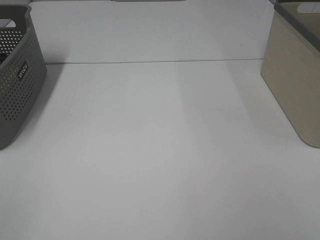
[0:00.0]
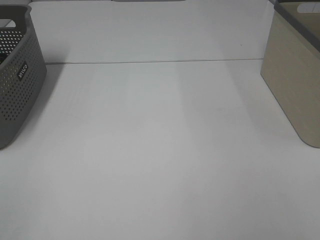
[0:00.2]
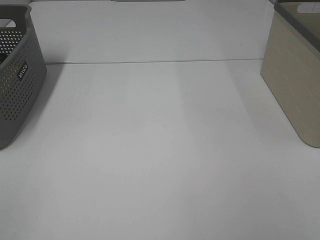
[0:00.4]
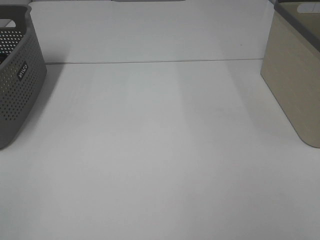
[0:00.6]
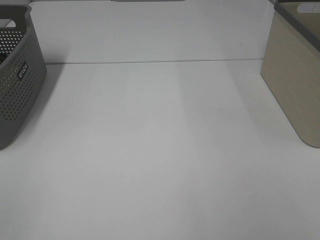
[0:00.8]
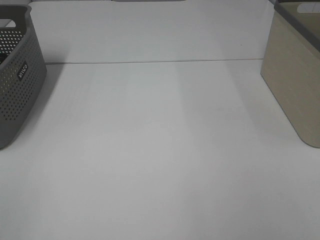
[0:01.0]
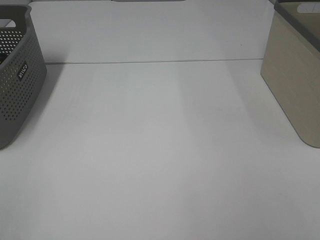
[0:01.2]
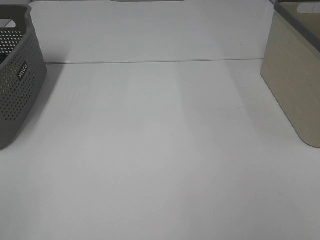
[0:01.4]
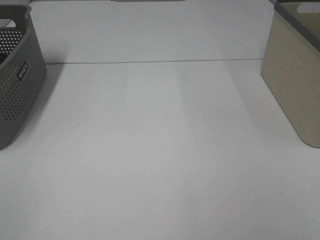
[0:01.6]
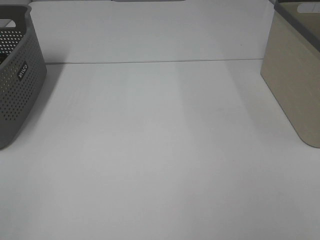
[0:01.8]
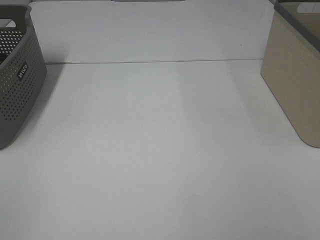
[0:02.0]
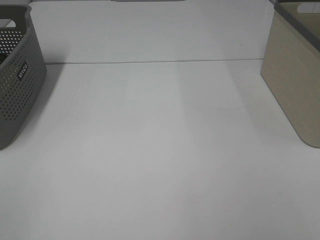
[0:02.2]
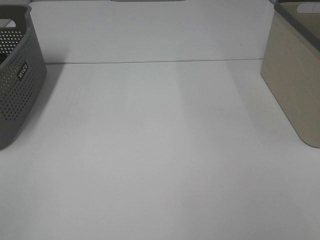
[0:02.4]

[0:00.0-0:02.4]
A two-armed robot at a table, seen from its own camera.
0:01.2 to 0:02.4: Both grippers stay about where they are.

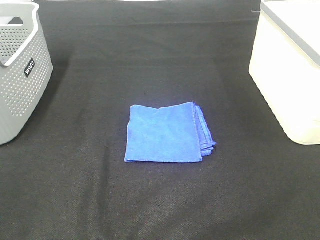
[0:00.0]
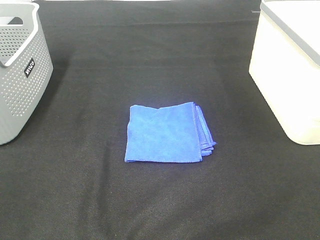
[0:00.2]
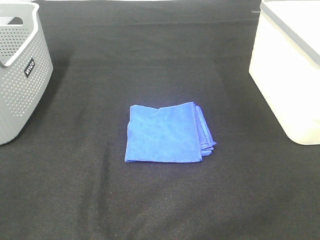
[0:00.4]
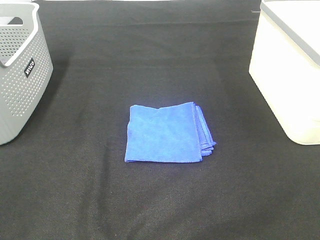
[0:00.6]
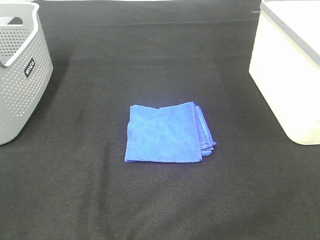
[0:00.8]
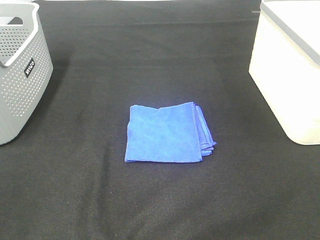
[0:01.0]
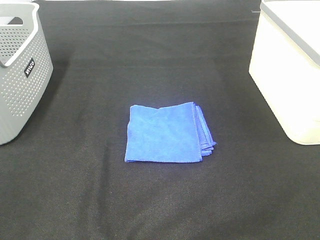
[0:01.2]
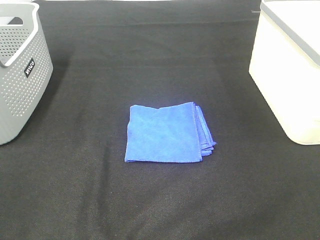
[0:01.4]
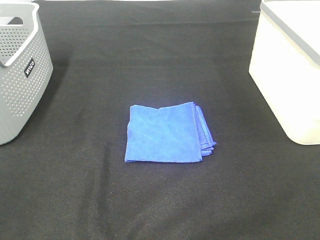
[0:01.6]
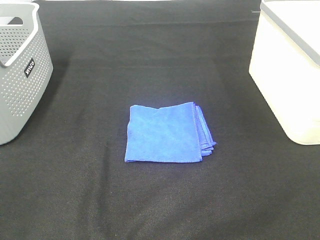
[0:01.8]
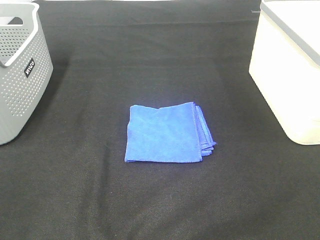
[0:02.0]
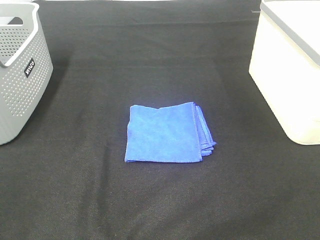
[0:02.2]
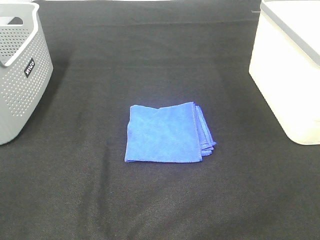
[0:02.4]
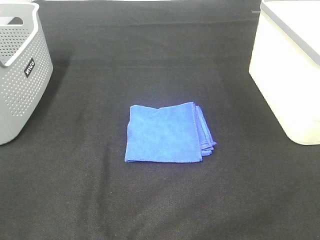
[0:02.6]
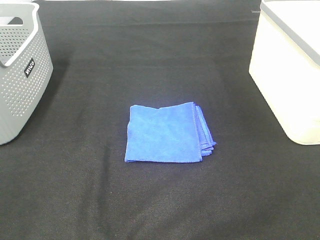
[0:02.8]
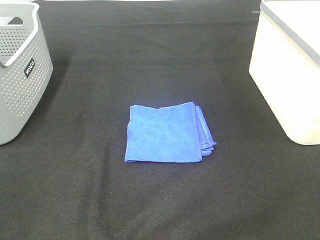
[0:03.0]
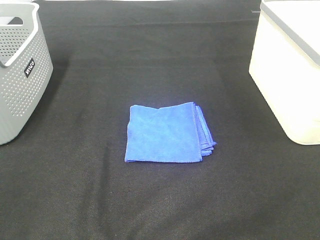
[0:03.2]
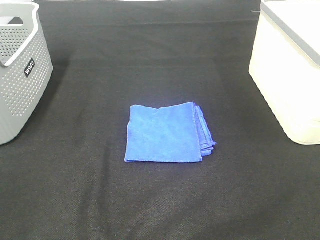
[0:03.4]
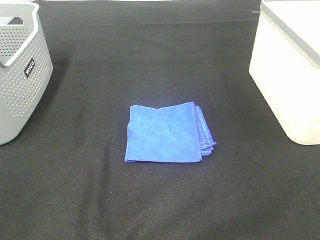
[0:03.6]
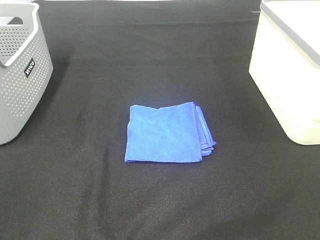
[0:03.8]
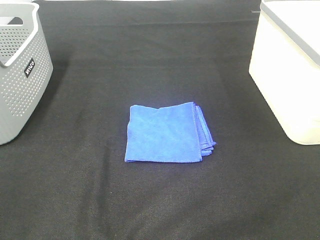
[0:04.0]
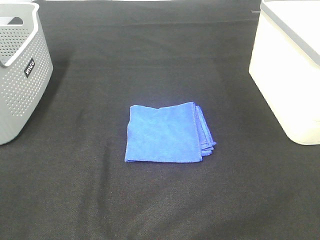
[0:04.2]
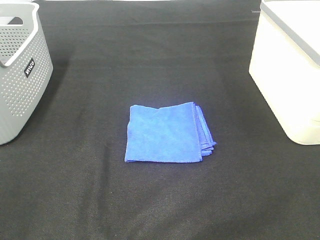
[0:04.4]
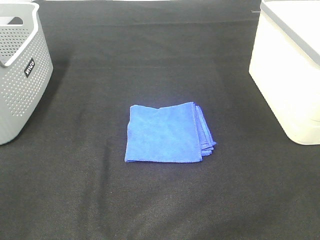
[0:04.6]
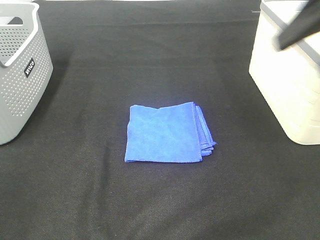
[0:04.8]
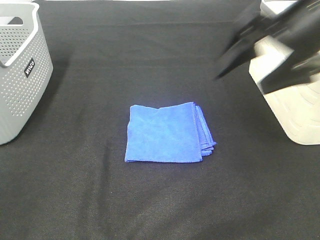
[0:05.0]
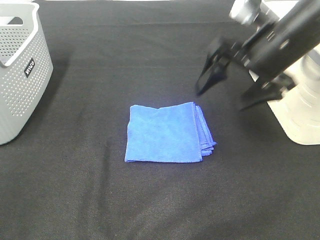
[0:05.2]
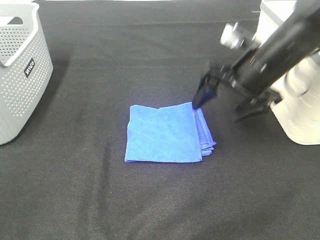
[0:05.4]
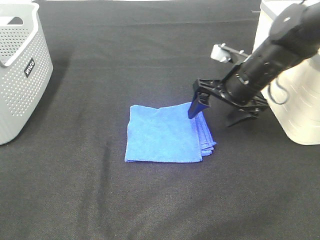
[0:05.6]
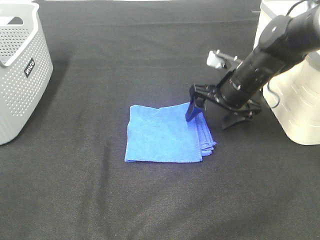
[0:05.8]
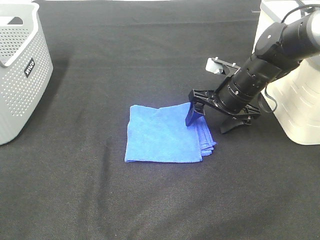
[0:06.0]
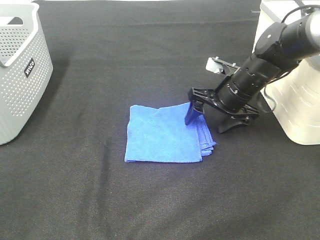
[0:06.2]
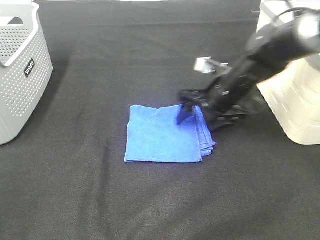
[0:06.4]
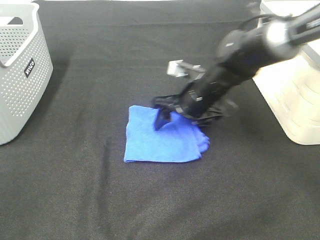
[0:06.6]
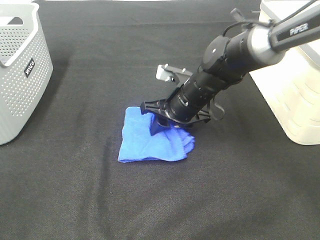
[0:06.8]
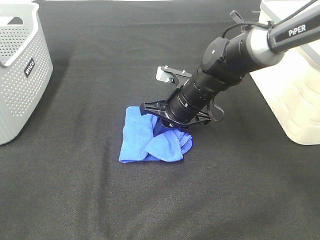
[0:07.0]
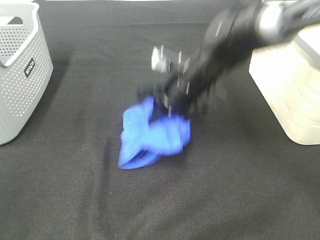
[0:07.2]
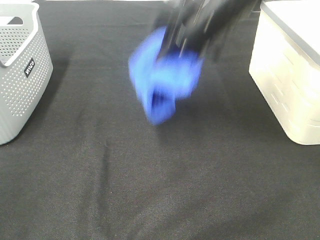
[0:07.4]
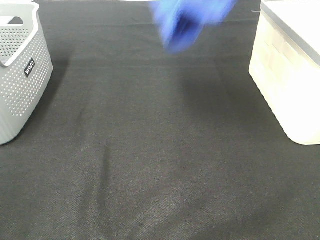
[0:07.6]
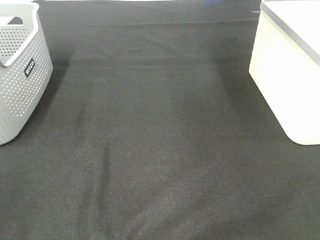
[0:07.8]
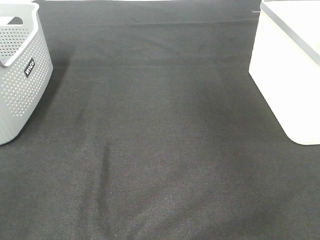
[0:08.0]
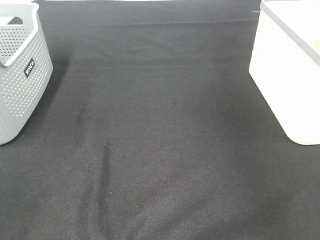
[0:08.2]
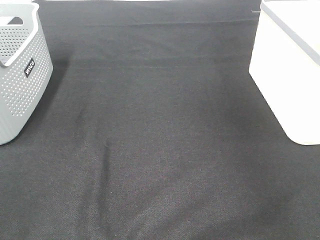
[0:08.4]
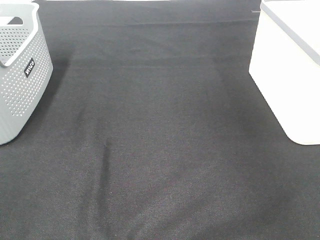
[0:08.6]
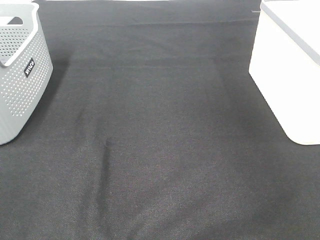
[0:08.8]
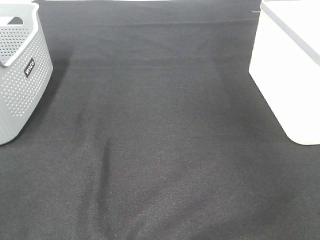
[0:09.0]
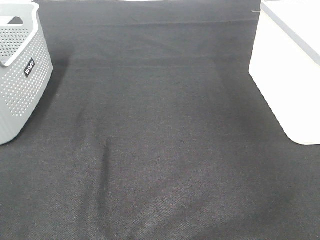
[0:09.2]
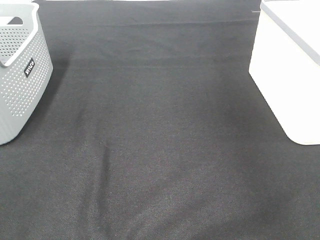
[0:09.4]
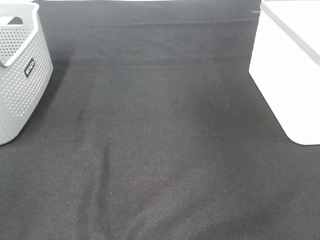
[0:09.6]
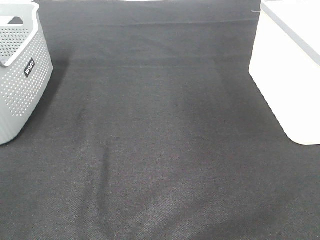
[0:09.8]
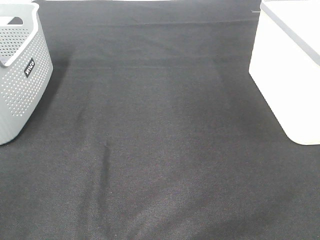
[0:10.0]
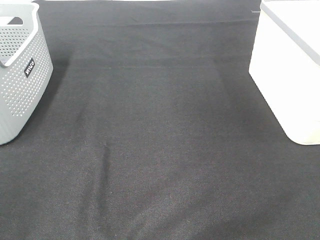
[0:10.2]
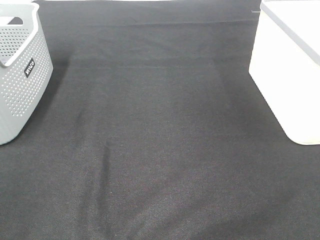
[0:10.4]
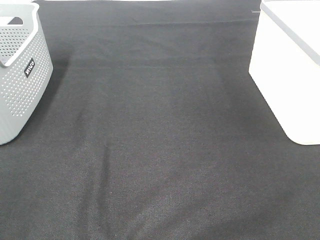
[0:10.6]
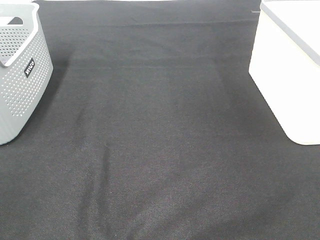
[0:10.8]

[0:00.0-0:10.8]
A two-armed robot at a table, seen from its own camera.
Step, 0:00.0 to 0:06.8: Right hand: grab the folded blue towel.
Step, 0:07.0 to 0:08.8: Right hand: place the blue towel in right basket.
0:00.0 to 0:03.0: Both grippers stay about where they are.
0:04.6 to 0:06.2: The right gripper moves downward, forward and to the left, roughly 35 cm.
0:06.2 to 0:07.8: The right gripper is displaced upward by some 35 cm, and closes.
0:07.8 to 0:09.2: The right gripper goes approximately 20 cm to the right and downward, and opens up.

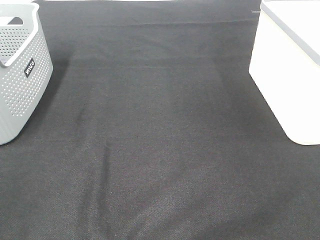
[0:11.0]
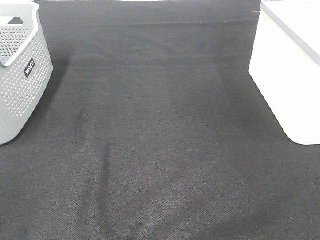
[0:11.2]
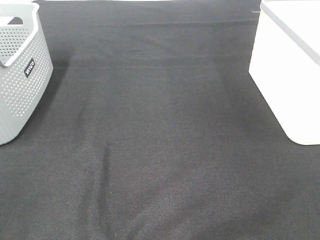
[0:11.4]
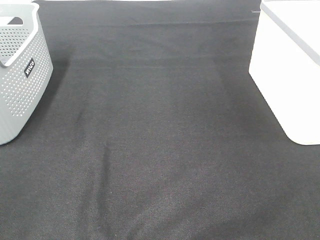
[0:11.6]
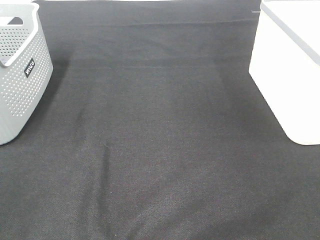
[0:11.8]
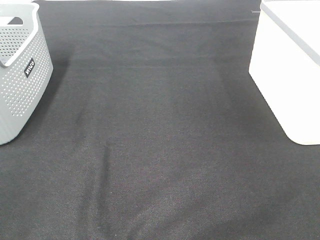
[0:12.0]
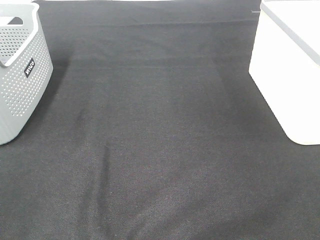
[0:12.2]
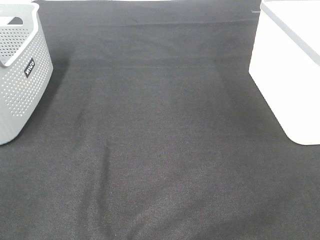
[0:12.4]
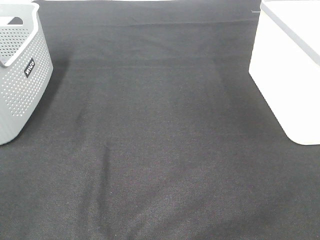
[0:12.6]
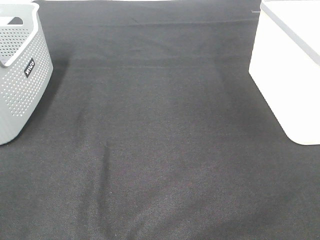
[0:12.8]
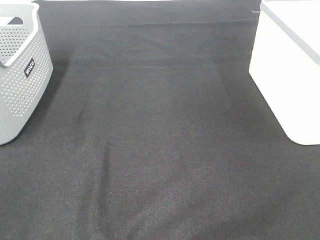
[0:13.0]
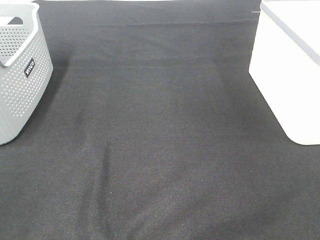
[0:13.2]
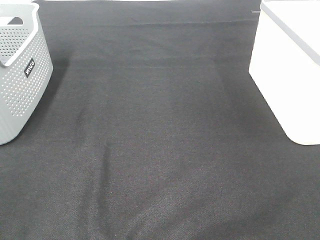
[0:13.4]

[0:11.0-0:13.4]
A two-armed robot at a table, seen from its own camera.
0:11.0 to 0:13.4: Neither gripper changes place.

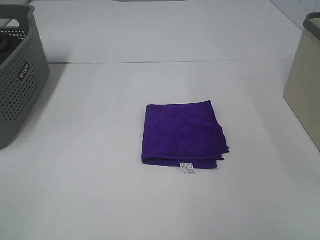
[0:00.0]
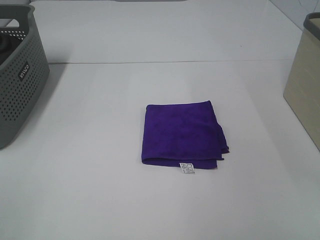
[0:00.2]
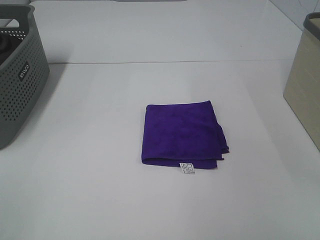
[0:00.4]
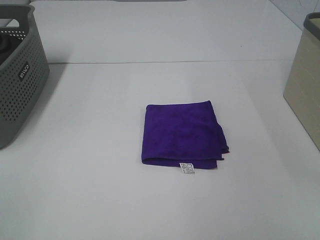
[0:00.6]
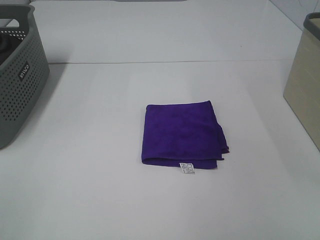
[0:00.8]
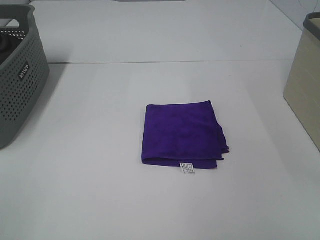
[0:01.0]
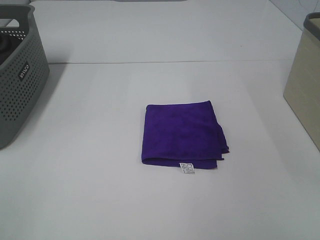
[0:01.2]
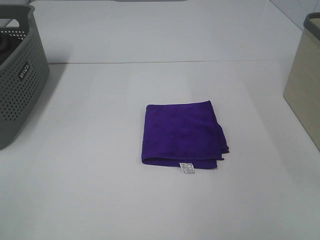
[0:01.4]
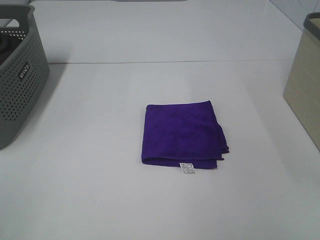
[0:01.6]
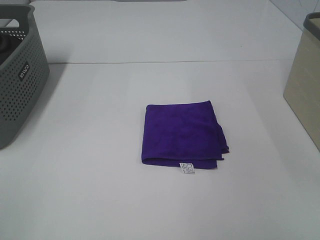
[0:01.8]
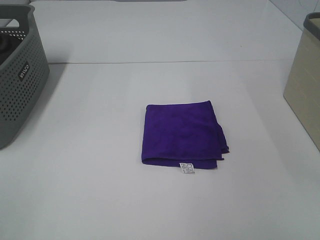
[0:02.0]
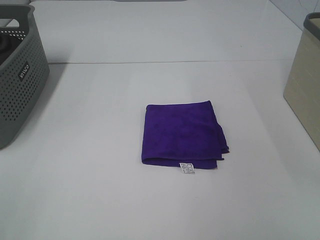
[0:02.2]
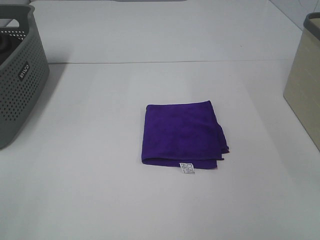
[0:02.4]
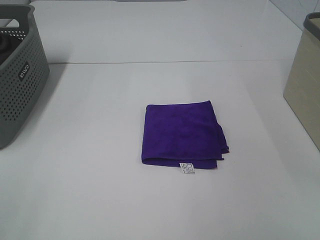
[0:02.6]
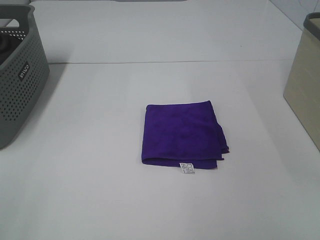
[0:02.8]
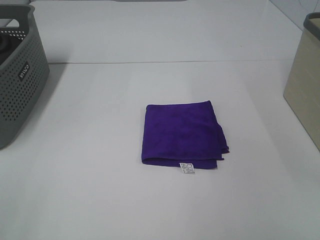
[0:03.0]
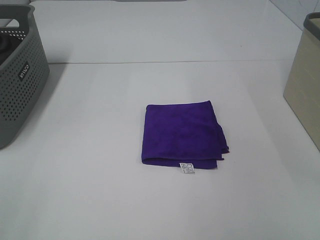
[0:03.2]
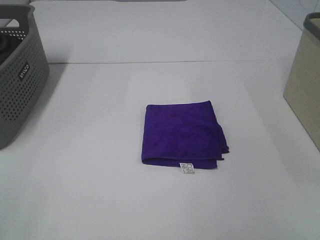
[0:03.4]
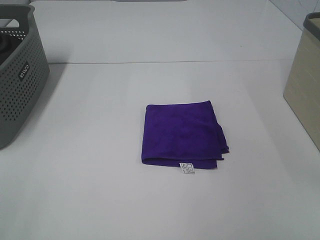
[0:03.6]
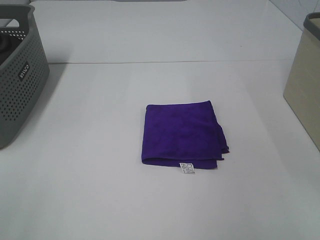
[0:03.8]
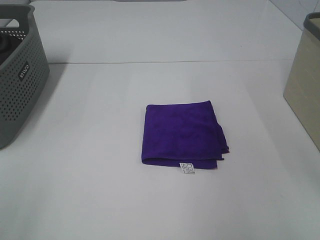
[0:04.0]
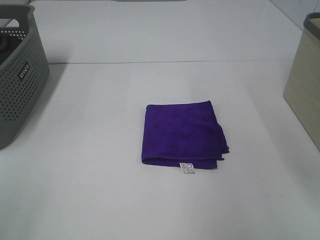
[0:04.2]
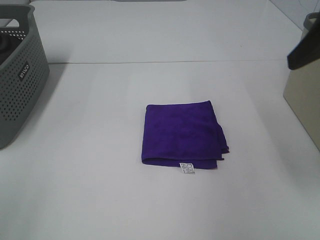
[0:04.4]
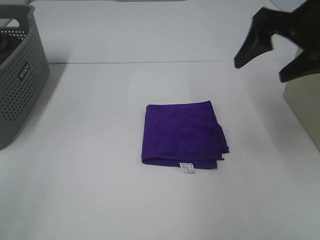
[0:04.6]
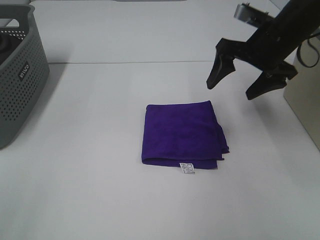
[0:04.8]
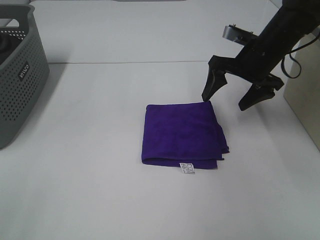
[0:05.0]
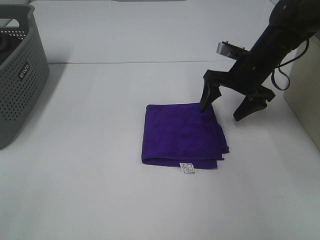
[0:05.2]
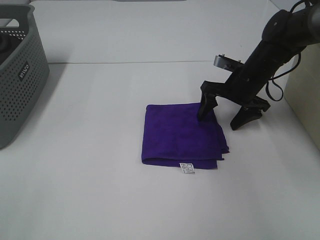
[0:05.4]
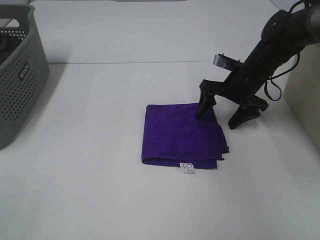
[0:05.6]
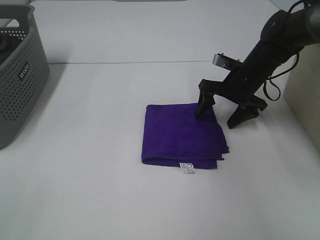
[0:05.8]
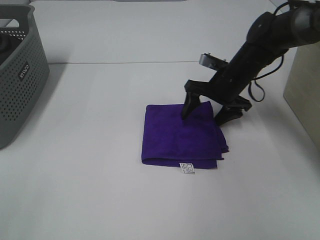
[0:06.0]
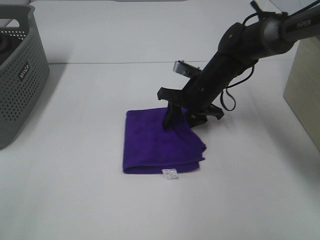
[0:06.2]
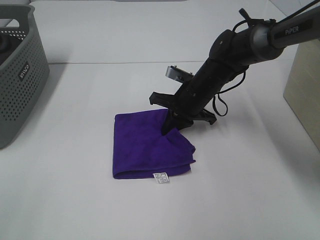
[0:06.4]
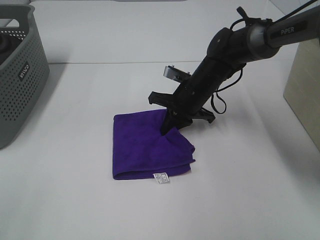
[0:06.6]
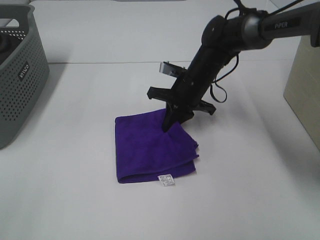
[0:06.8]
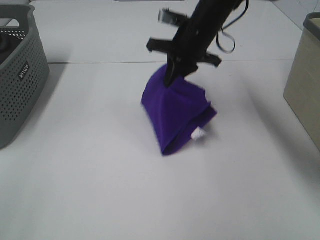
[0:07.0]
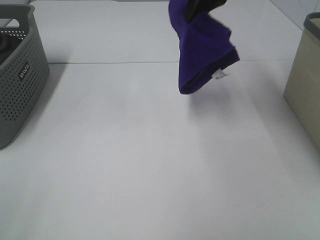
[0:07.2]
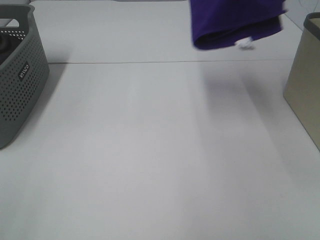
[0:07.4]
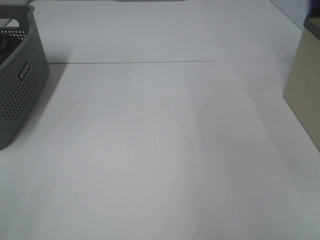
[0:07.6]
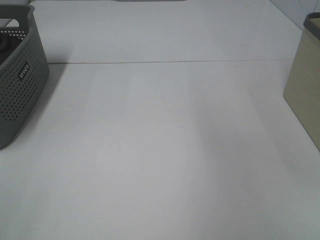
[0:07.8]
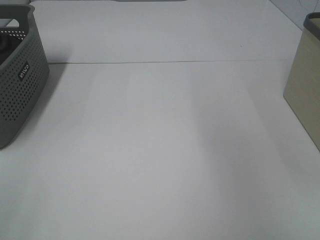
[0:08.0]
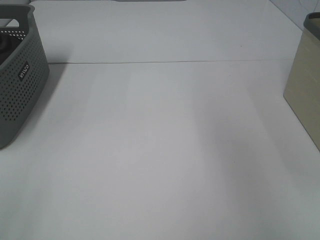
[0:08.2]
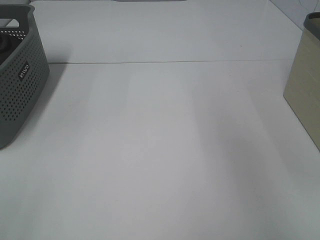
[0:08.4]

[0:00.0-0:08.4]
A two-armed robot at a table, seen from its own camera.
Step, 0:00.0 to 0:06.4: Right hand: grab the folded purple towel.
0:00.0 to 0:02.8: Both grippers stay about where they are.
0:04.2 to 0:05.6: The right gripper goes about 35 cm forward and downward.
0:05.6 to 0:07.0: The right gripper goes approximately 15 cm to the left and upward, and closes.
0:07.0 to 0:08.4: The right gripper goes approximately 35 cm to the right and upward.
